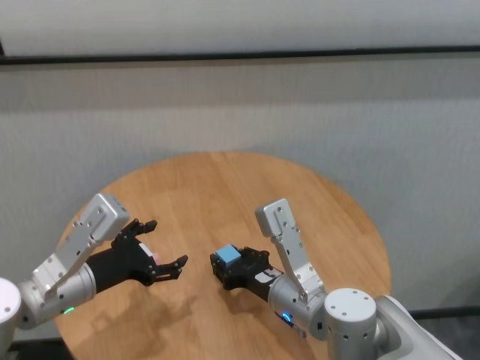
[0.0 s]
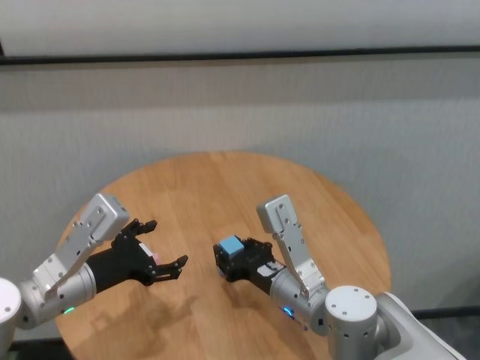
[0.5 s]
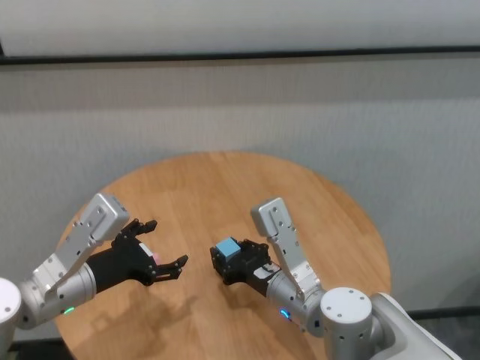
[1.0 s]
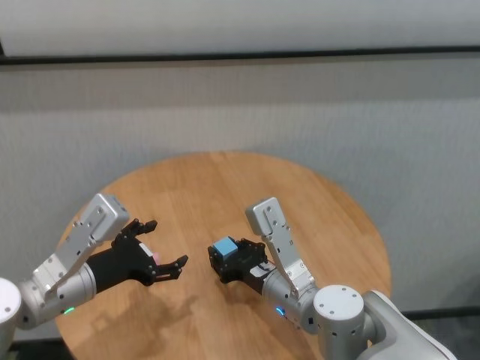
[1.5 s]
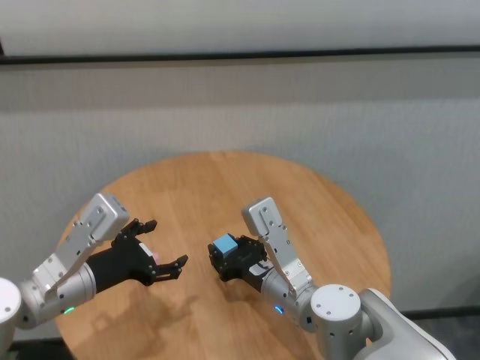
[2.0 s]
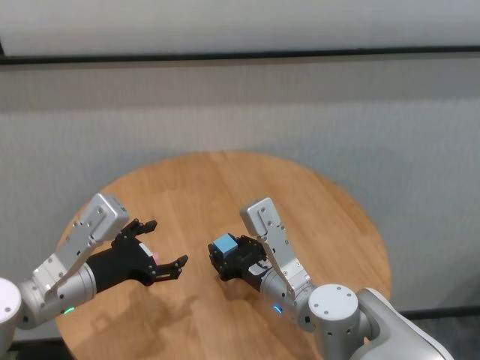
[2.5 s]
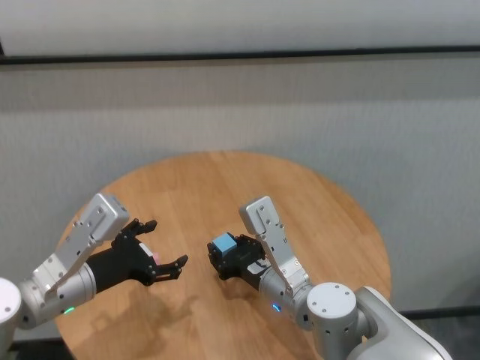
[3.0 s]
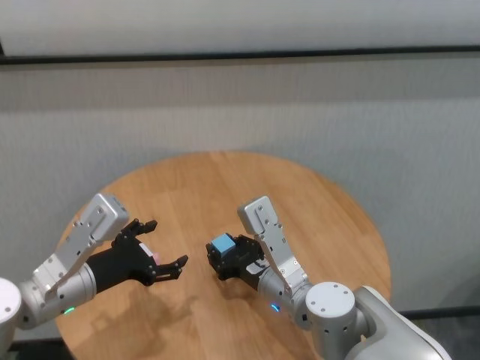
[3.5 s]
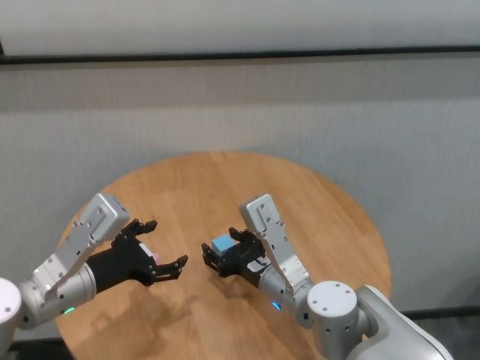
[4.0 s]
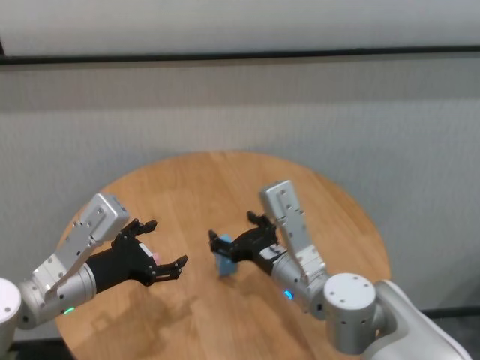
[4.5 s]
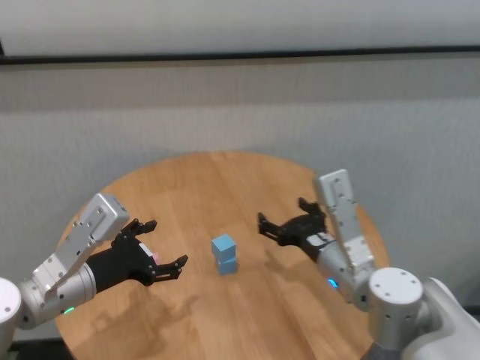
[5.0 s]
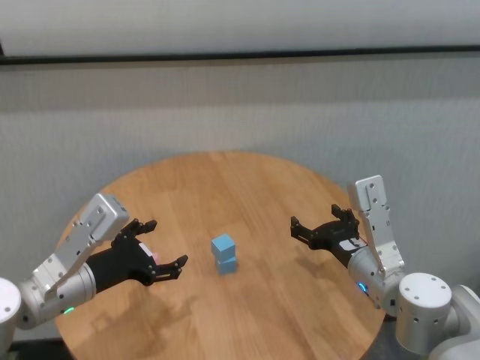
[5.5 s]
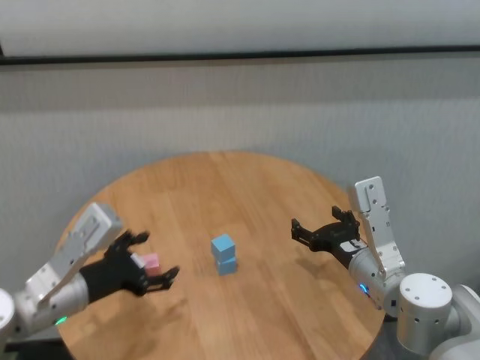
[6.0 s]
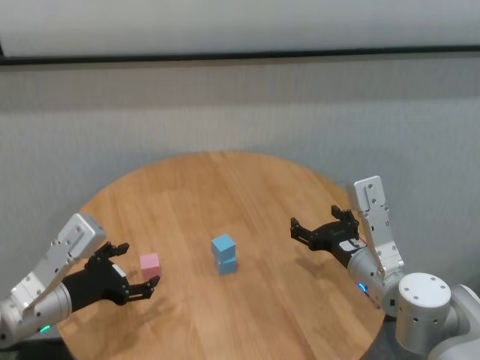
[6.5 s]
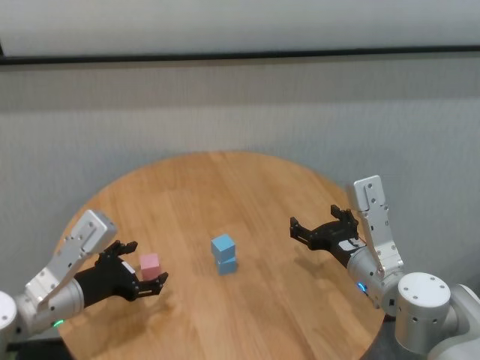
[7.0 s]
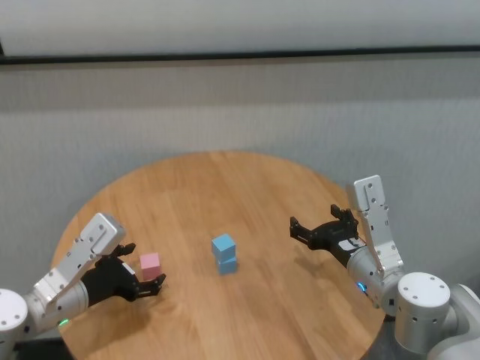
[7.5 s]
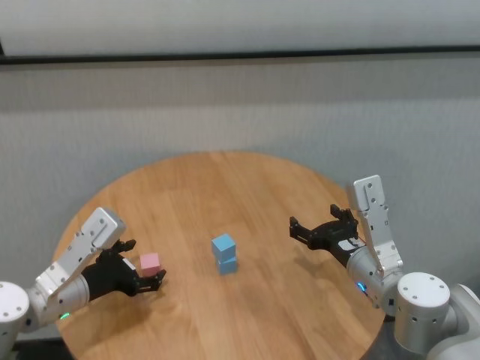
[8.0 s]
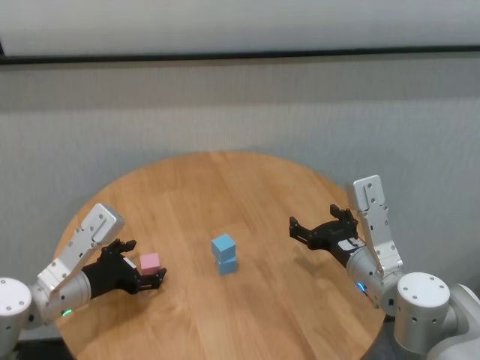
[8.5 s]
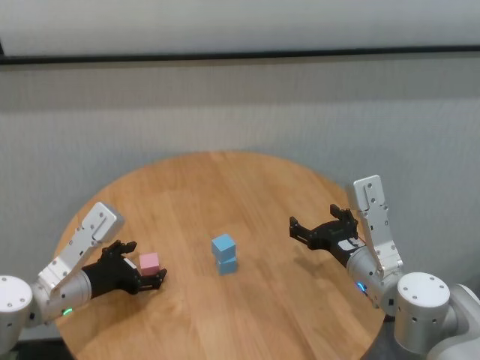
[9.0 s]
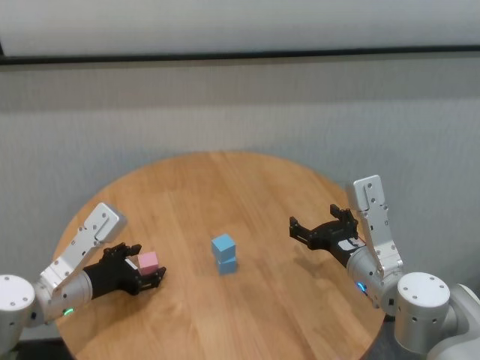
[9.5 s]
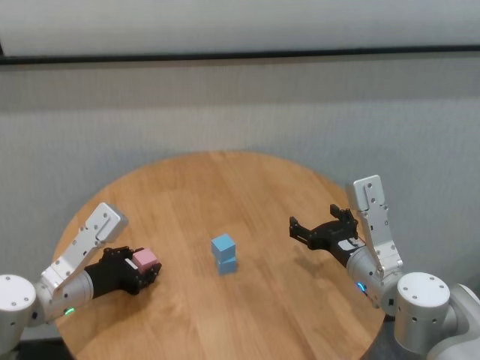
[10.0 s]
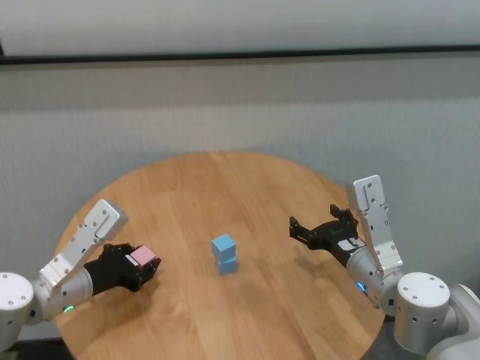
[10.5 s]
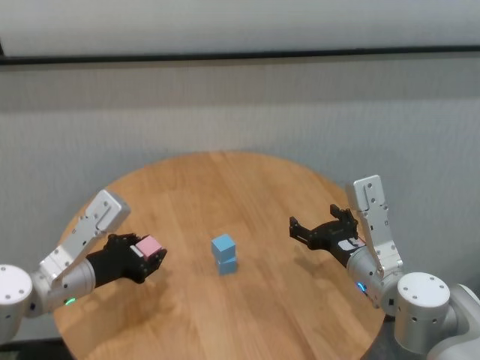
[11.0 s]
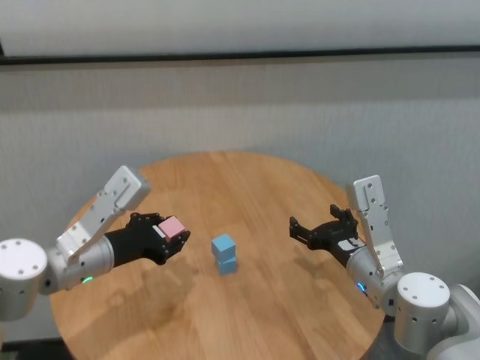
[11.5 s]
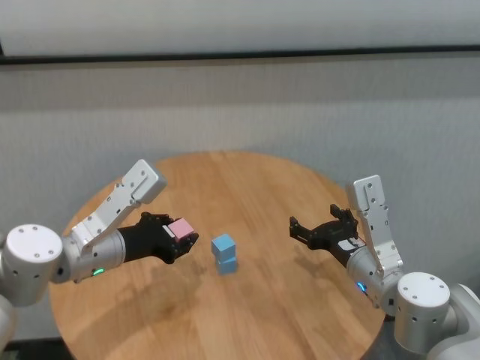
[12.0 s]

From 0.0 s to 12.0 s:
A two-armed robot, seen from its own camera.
Task of the whole recording: stack building blocks on the table.
Step, from 0.0 s to 4.0 s: Place the blue building block on the blue building blocks with right gripper.

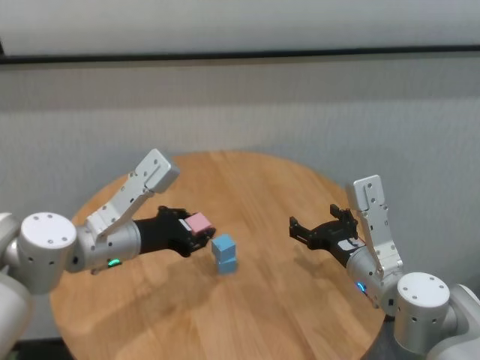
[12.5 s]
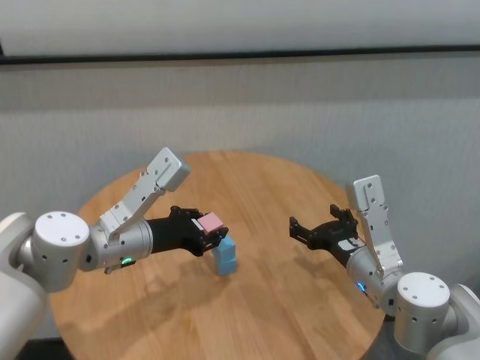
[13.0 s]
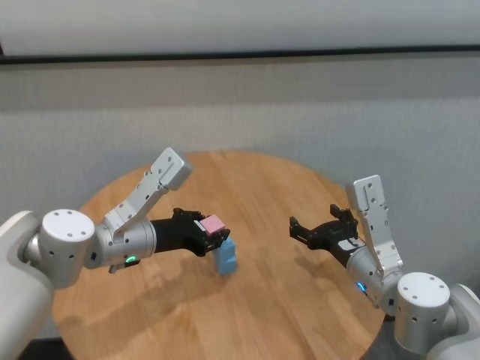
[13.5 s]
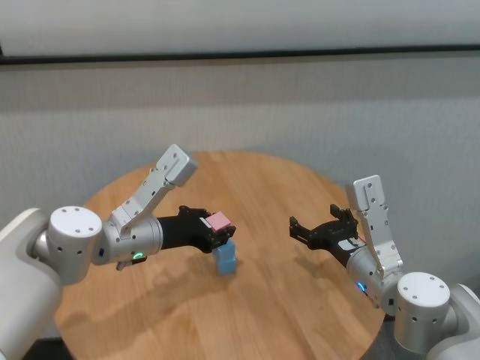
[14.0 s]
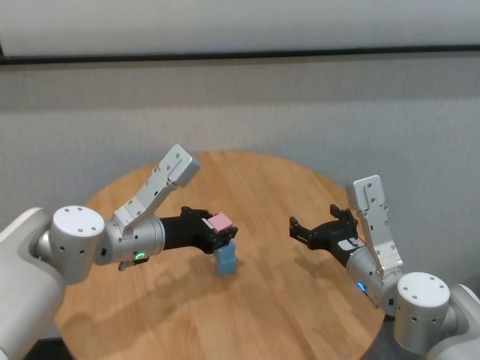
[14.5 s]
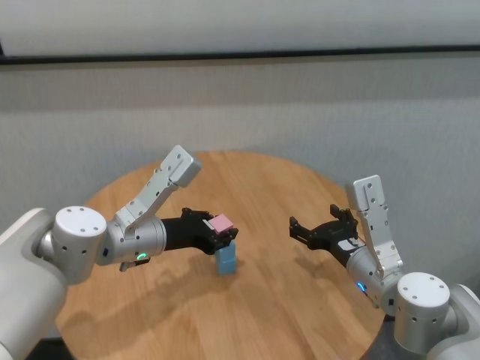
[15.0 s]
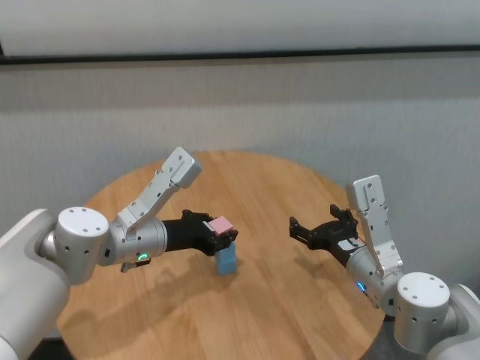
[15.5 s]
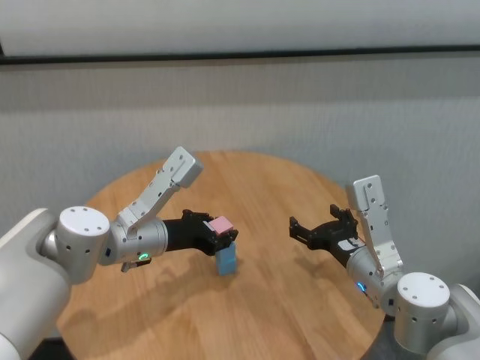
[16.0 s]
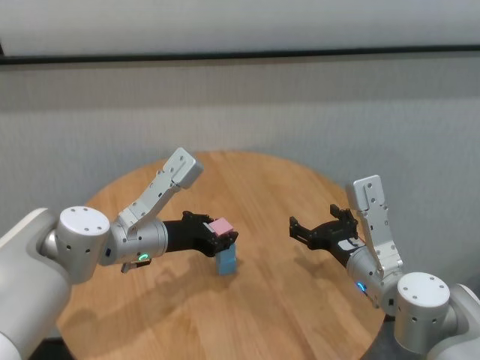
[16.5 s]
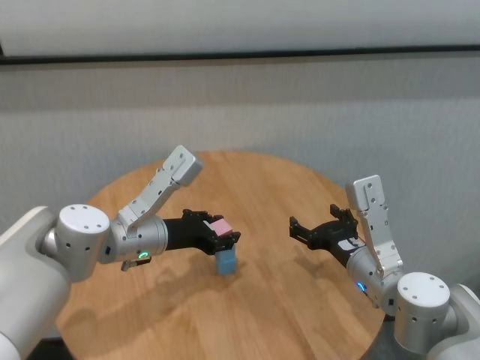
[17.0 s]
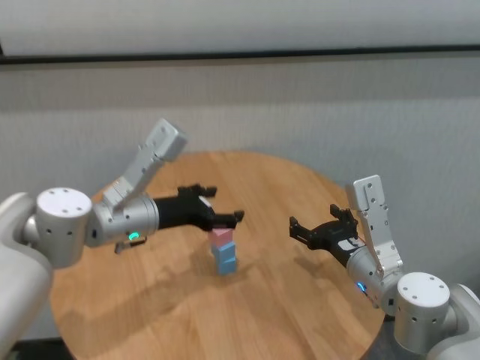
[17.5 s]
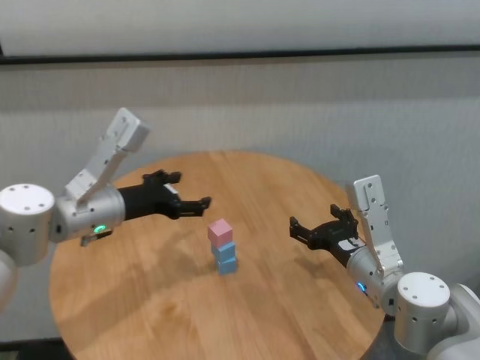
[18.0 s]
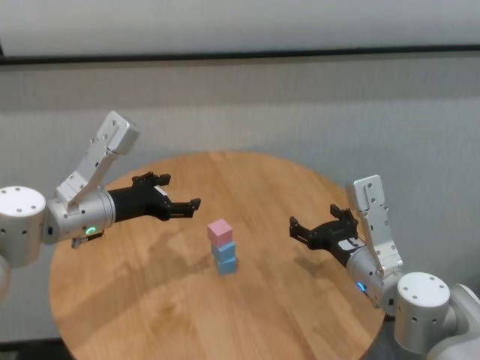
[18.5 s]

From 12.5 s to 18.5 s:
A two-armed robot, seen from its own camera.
Task of the whole recording: stack building blocks on the table.
Step, from 12.5 s to 17.0 s: Place the pink building block on the blue building blocks with left gripper.
